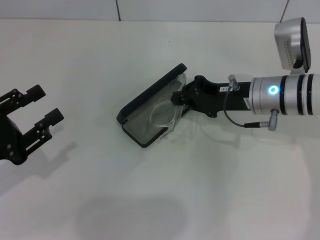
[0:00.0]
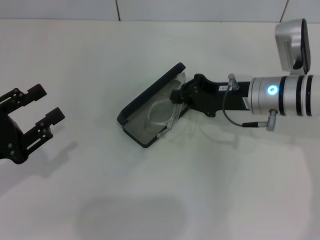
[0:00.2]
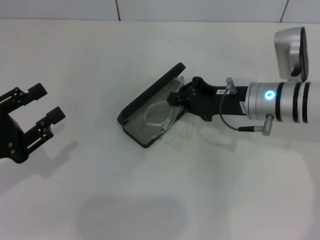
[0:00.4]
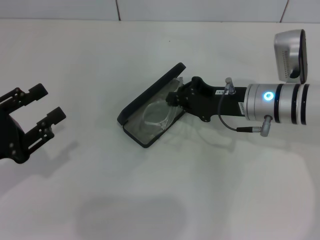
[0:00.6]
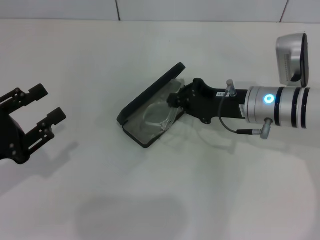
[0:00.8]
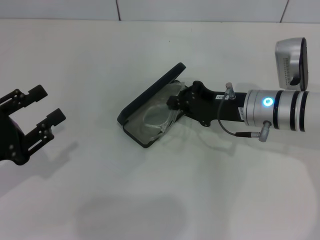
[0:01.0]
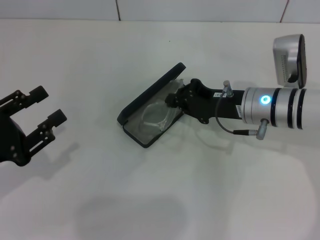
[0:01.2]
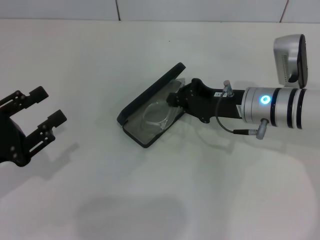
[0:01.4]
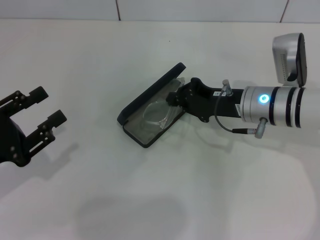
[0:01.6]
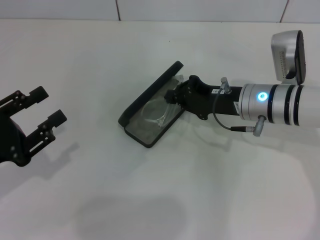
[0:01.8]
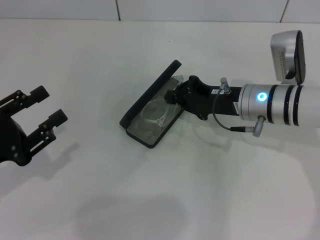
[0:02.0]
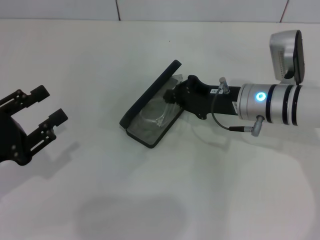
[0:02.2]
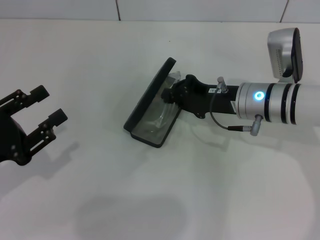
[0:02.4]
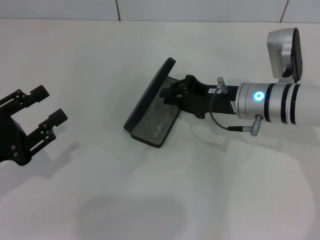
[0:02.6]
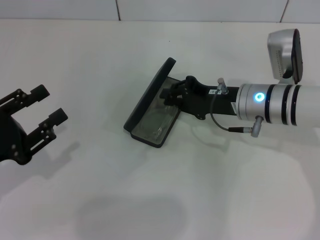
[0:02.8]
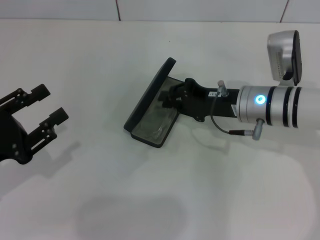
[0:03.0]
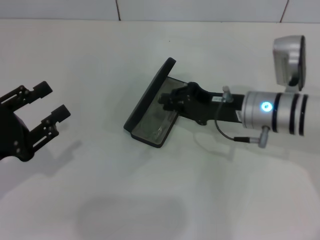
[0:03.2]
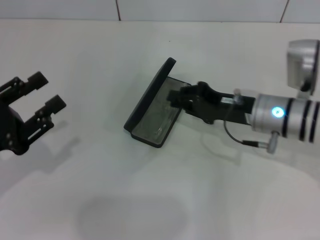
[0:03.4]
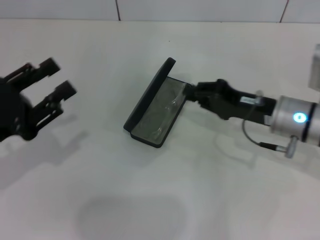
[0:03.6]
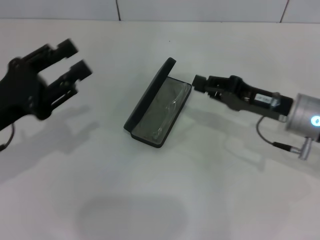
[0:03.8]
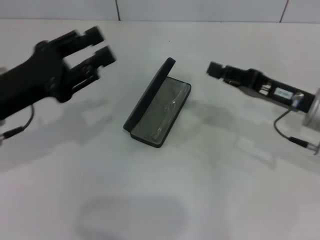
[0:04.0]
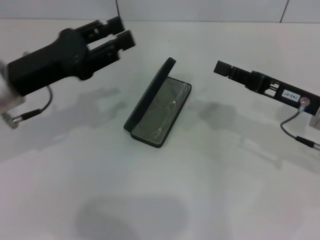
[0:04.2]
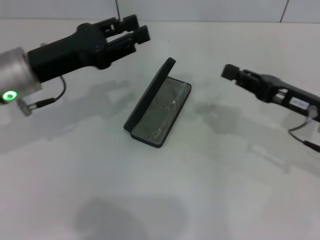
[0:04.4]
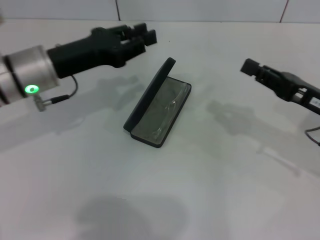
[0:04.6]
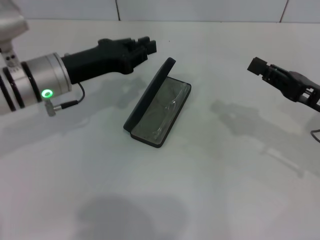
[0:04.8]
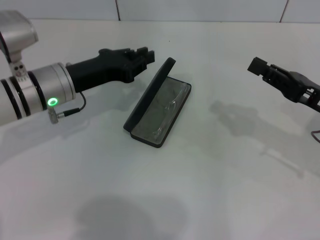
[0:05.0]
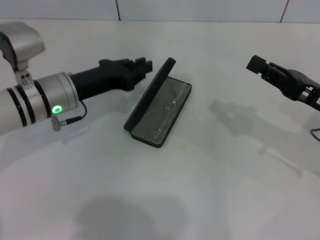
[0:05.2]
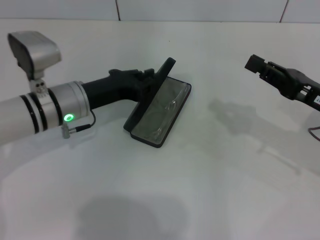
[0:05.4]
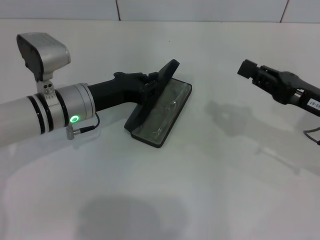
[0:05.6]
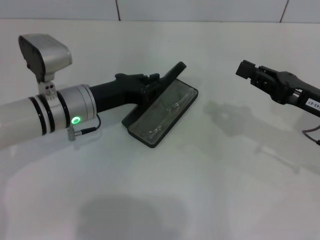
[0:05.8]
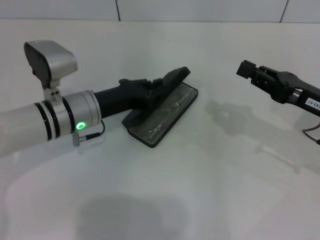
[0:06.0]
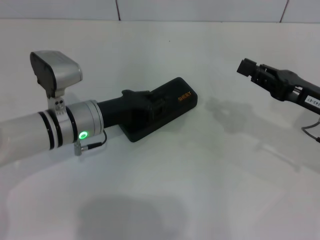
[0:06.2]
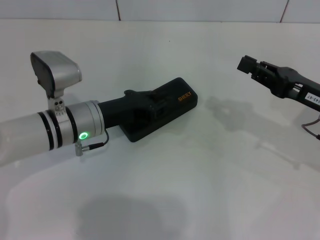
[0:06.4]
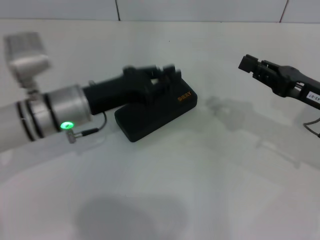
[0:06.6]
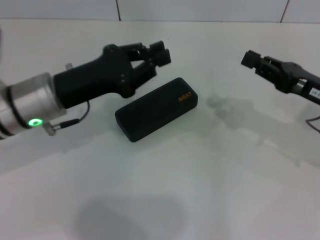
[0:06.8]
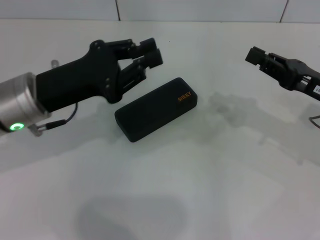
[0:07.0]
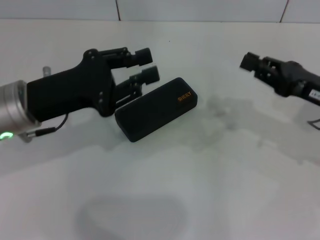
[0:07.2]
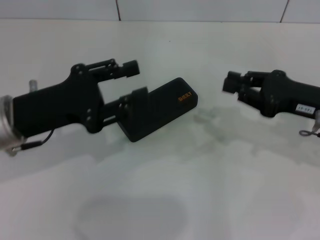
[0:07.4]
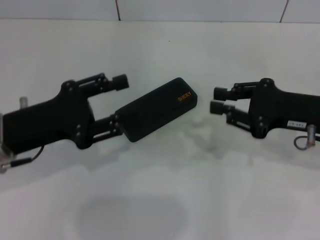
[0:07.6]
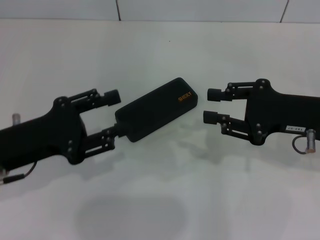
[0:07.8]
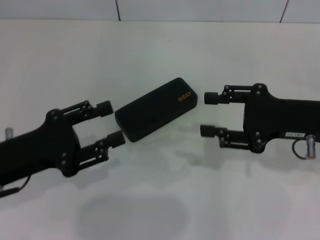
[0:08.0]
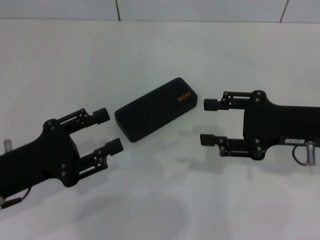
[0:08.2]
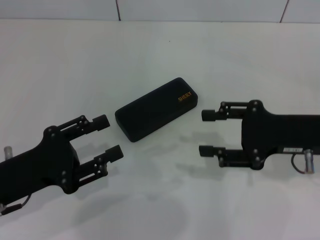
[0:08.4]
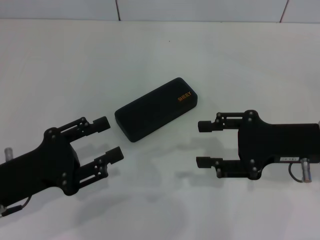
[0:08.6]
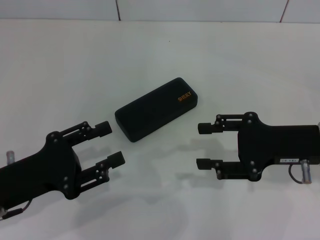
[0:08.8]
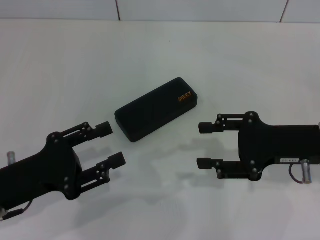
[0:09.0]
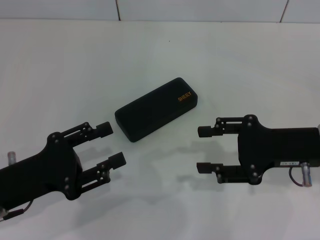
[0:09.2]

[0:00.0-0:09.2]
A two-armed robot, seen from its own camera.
Step, 0:00.0 to 0:02.8: Put the glasses into the case with your right hand.
Step, 0:03.2 to 0:06.4: Close the glasses case with your left hand.
0:00.0 to 0:01.6: The grippers stay close to where they were, moving slightly.
0:01.6 to 0:03.0: Both grippers stay put.
0:03.0 to 0:04.6: The left gripper moves forward and to the right, some 20 cm, while the right gripper heads to the right and backward, covering approximately 15 cm.
0:04.6 to 0:06.2: The left gripper shifts roughly 10 cm downward.
0:06.2 to 0:07.6: The left gripper goes approximately 15 cm to the left, backward and upward, and opens.
0:07.6 to 0:09.2: The left gripper heads backward, covering approximately 5 cm; the right gripper opens its fingers.
